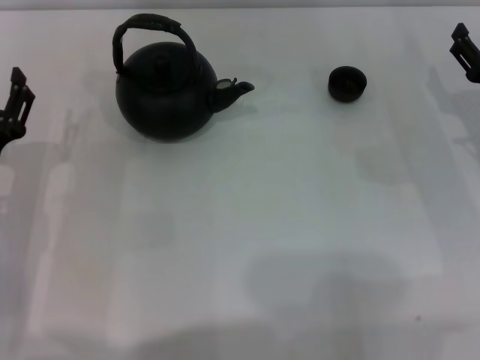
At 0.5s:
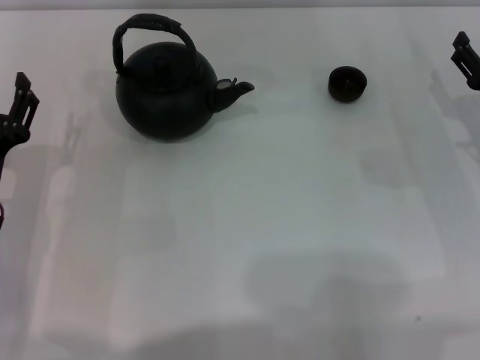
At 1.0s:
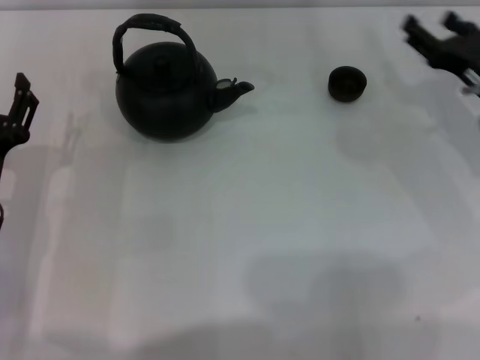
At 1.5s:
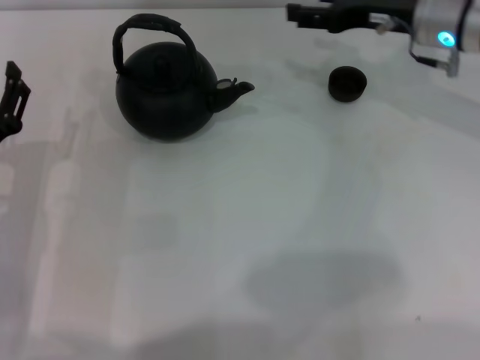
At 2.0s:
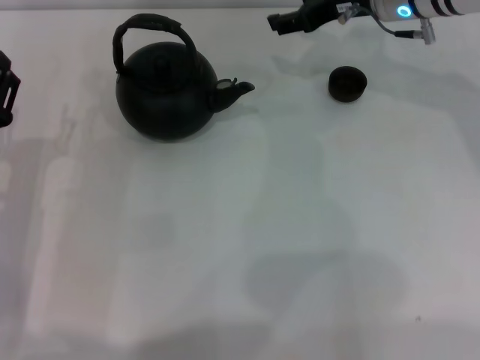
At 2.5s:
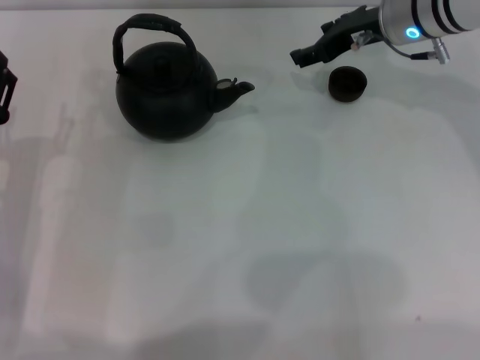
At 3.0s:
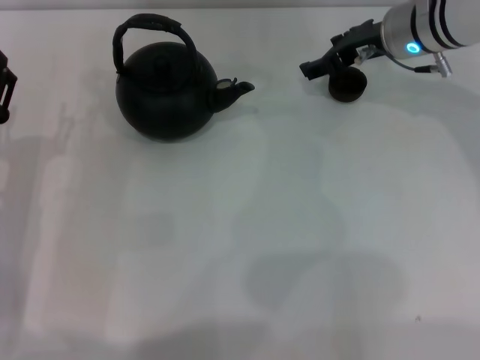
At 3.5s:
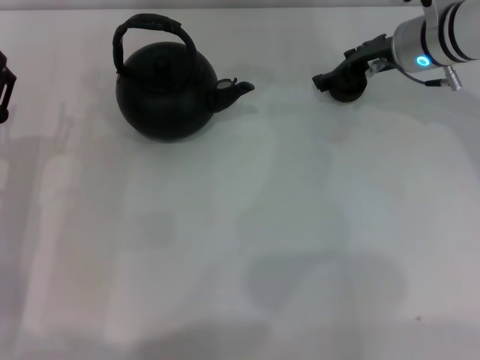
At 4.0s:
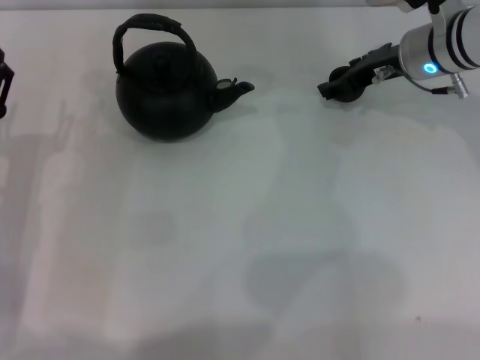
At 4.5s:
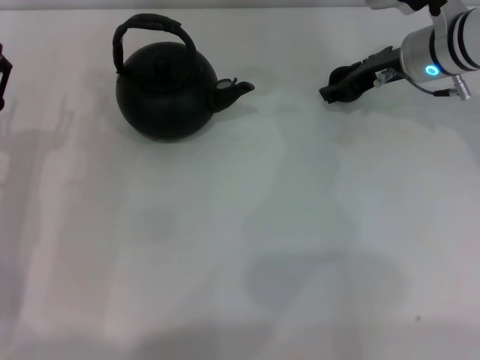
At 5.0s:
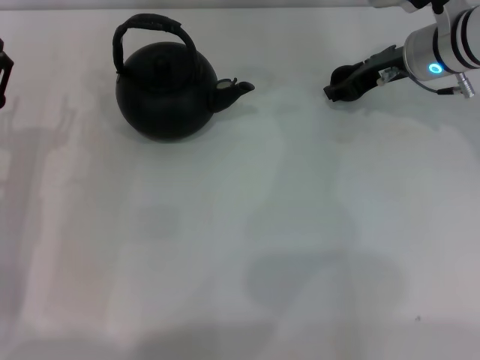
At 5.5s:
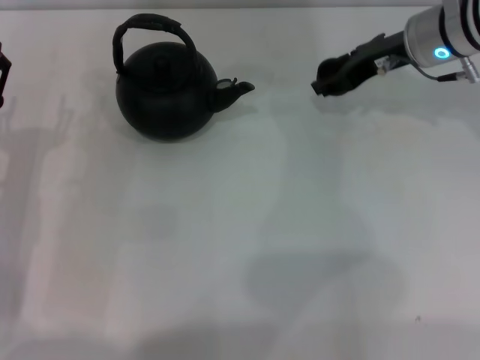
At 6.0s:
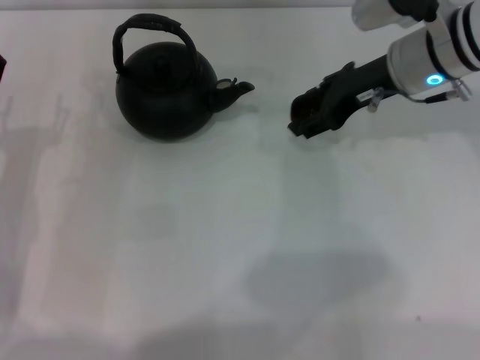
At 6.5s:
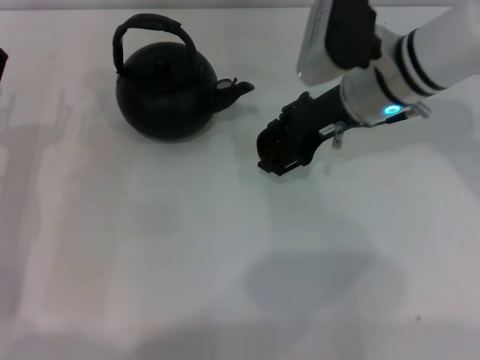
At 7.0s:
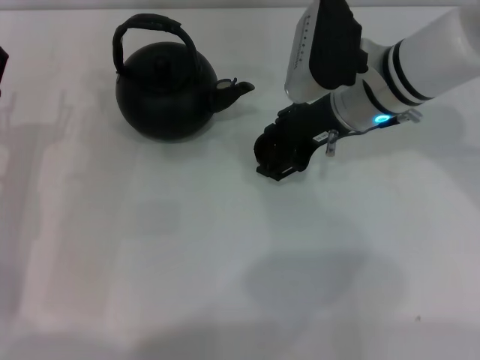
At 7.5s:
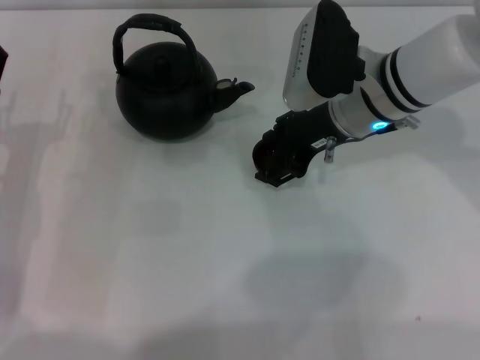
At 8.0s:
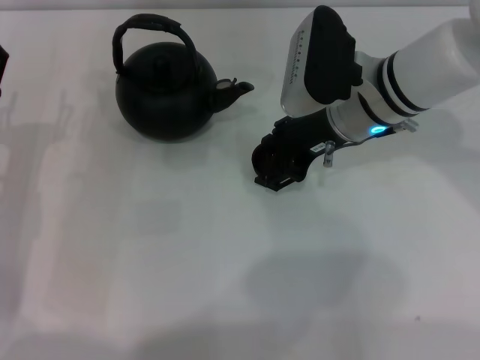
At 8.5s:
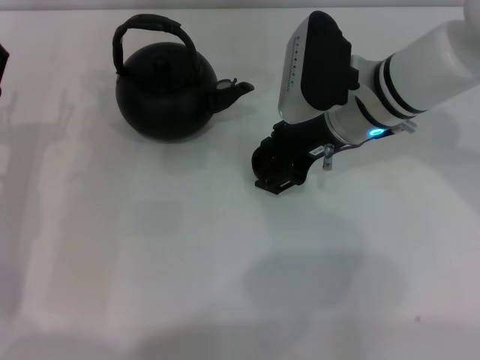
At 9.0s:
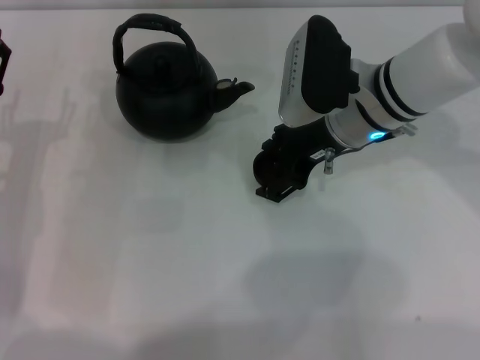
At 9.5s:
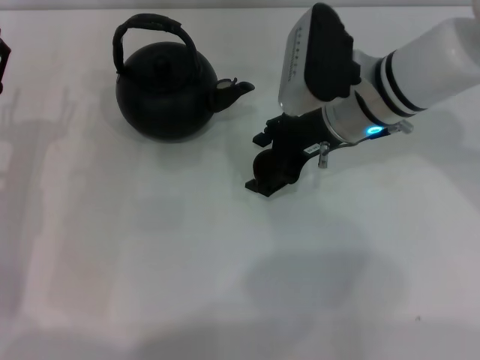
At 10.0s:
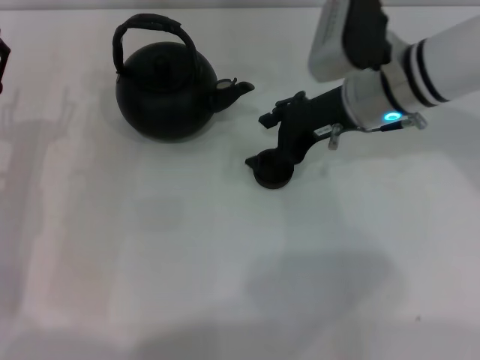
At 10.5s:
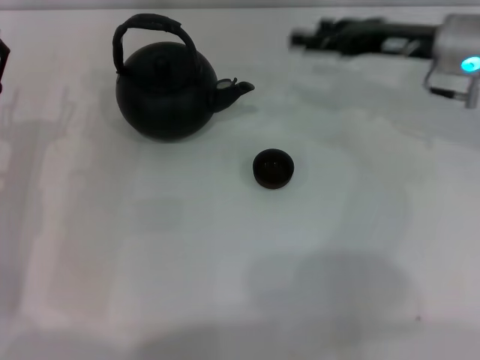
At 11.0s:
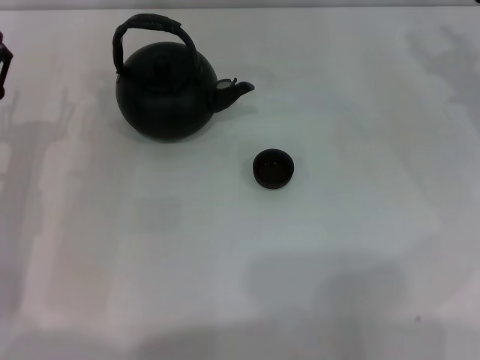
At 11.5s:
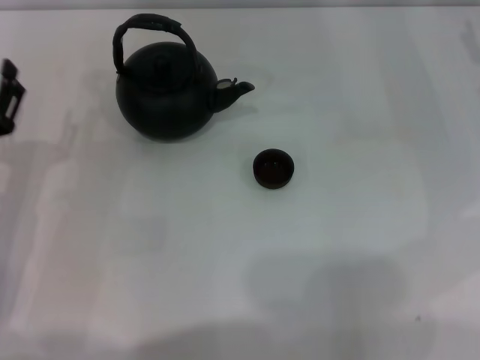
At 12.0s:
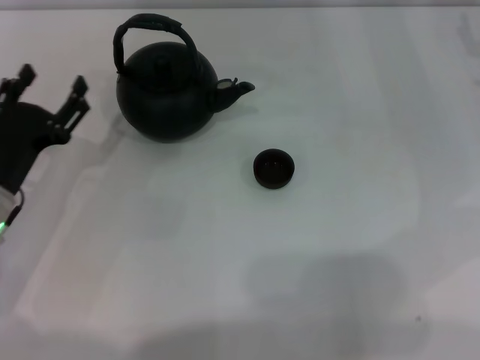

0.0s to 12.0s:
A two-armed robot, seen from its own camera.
Task of the whole recording: Grasp the handle of the teapot with one hand and pour tea into the teacup.
Step, 0.0s to 5.5s: Pick up the teacup with the right gripper.
Step, 6.0s to 9.5s: Place the teacup in the center of view with the right gripper.
0.0s to 2.0s: The right gripper goes approximately 25 cm forward, to the left and upward, and closes.
2.0s to 4.0s: The right gripper moves roughly 5 cm, and closes up.
4.0s to 6.0s: The right gripper changes place by about 5 cm.
6.0s to 8.0s: The right gripper goes roughly 5 cm to the left, and opens.
8.0s to 10.0s: The grippers make only small movements.
10.0s to 12.0s: The right gripper is displaced to the right by approximately 20 cm.

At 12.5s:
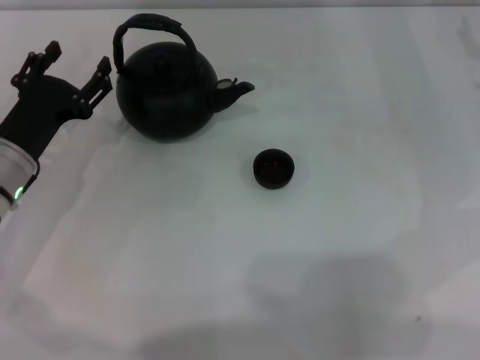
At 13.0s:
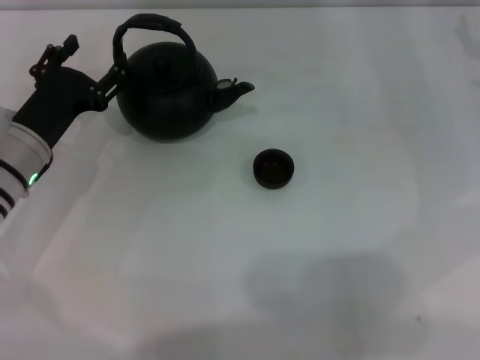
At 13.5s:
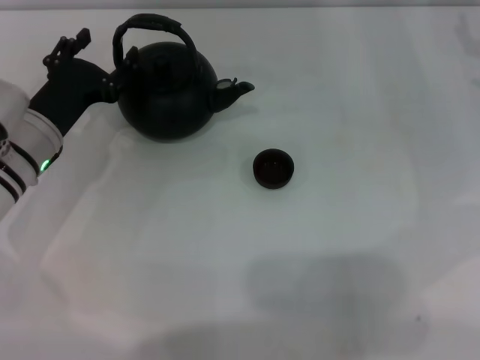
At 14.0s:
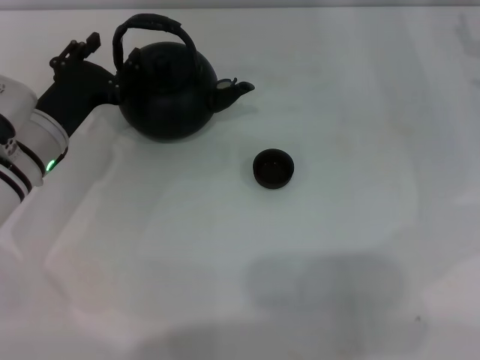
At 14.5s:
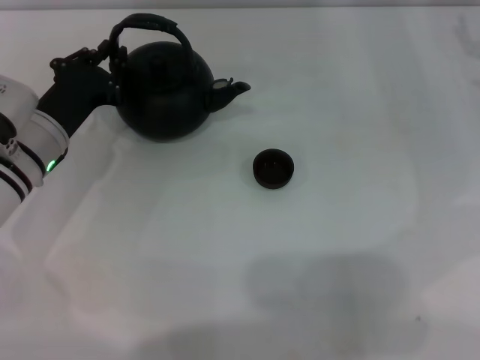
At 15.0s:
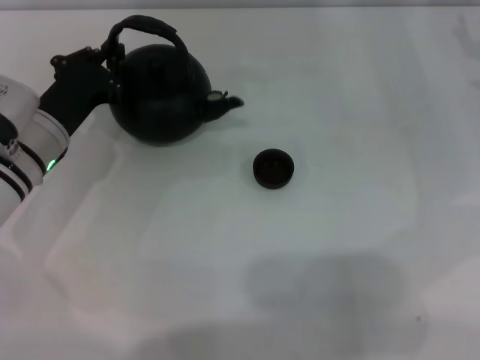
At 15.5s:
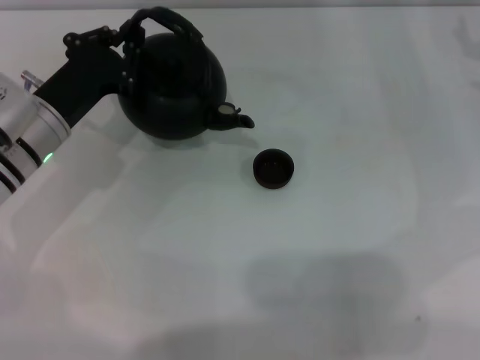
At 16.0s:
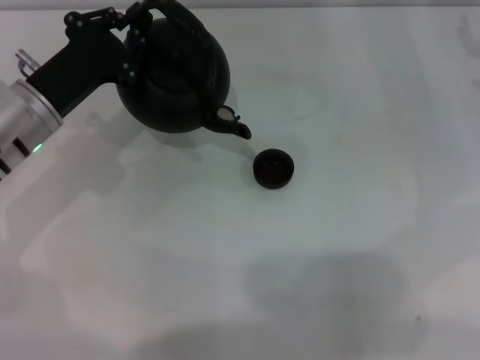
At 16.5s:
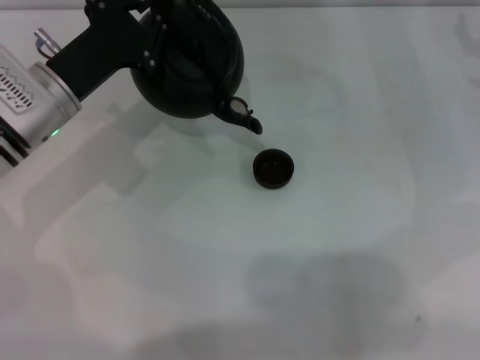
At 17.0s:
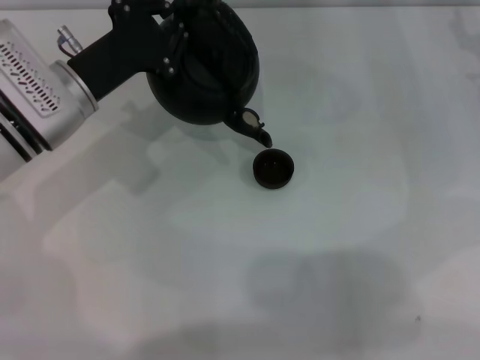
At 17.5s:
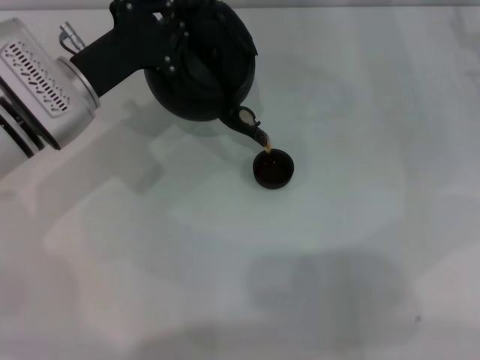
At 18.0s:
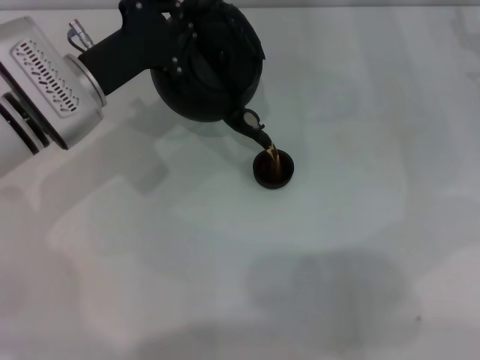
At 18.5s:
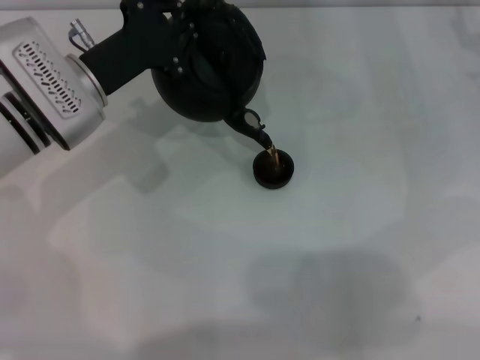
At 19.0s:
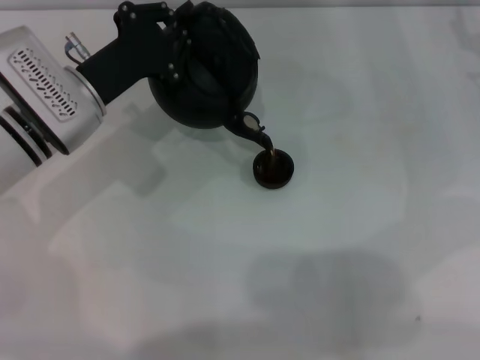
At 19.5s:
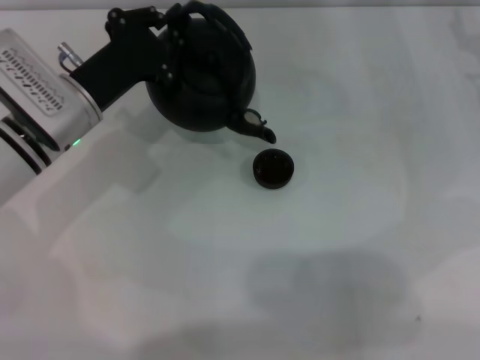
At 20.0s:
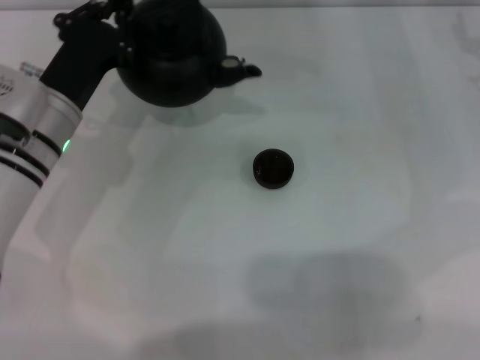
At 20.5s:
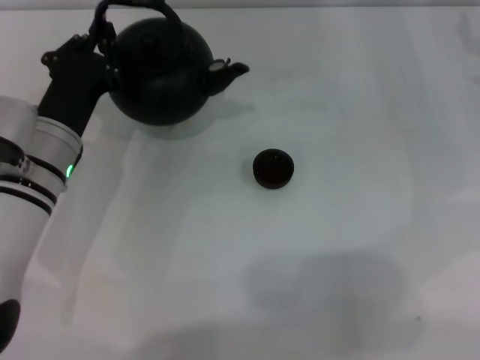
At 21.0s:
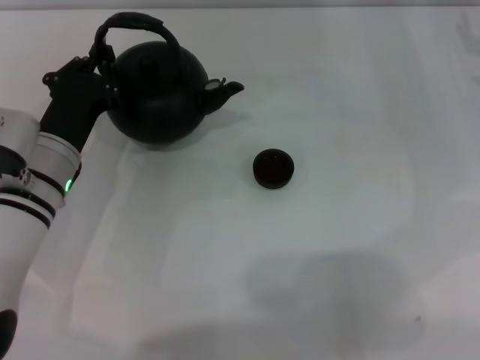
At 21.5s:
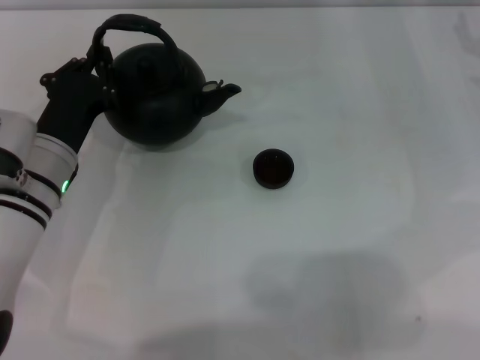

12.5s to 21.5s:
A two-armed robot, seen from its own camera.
Task of the whole recording: Grasp the handle of the teapot with one hand and pour tea into the teacup.
Step, 12.5s to 15.5s: Pick up the teapot with the left gripper.
Step, 16.0s to 19.0s: Pour tea into the teacup with the left gripper.
12.5s to 14.5s: The left gripper closes.
14.5s to 17.0s: The left gripper ends up some 5 cm from where it was, and closes.
17.0s to 19.5s: The grippers move only a little.
19.5s to 21.5s: The left gripper changes place by approximately 5 cm.

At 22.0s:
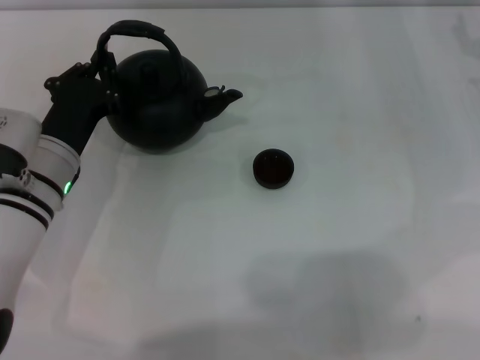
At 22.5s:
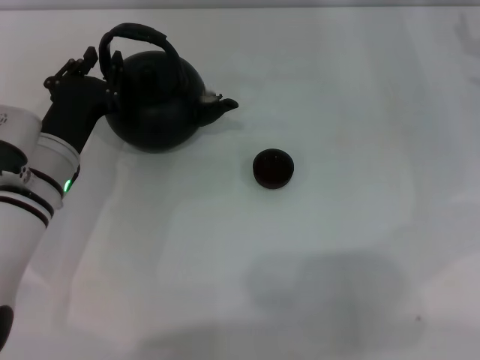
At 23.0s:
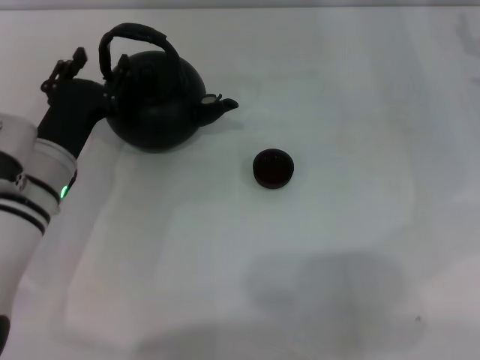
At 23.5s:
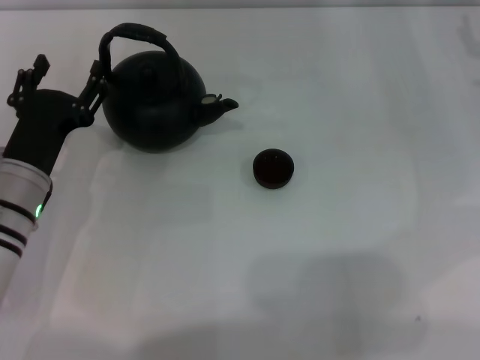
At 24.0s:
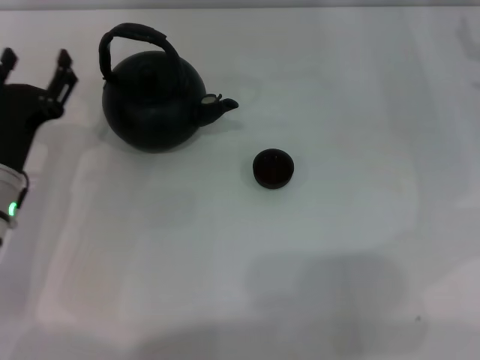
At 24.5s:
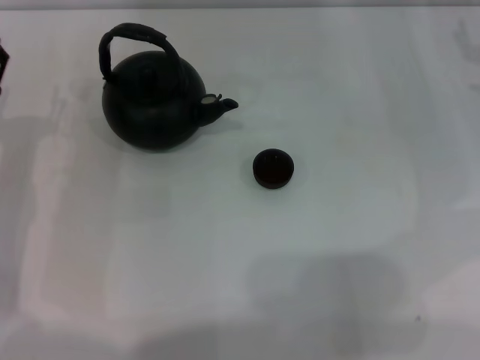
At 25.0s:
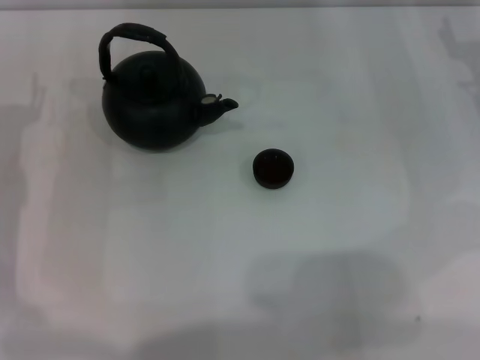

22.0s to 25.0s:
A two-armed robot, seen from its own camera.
Task of the whole recording: Grasp the handle of the teapot with one hand and pour tea into the teacup.
22.0s to 23.5s: The left gripper opens.
23.5s to 25.0s: The left gripper heads to the left, covering approximately 5 cm.

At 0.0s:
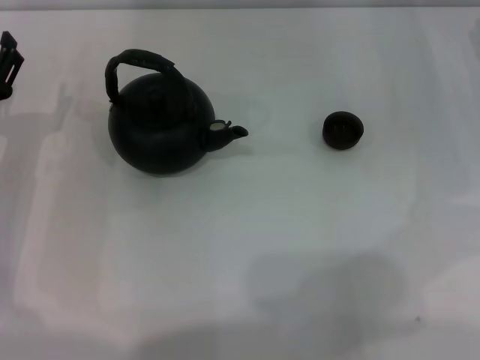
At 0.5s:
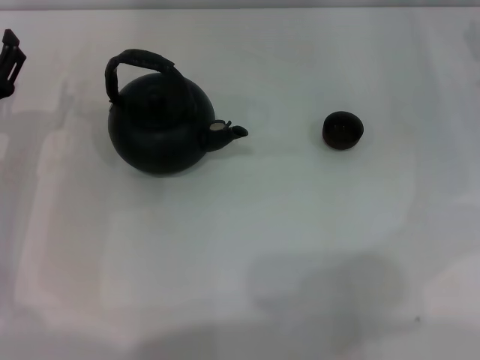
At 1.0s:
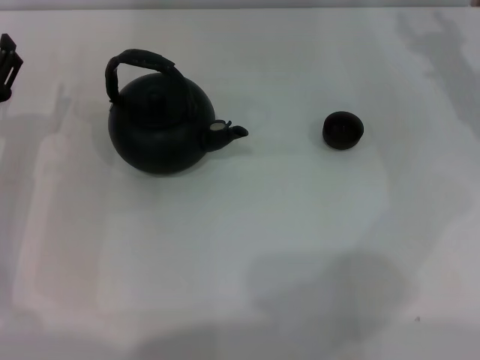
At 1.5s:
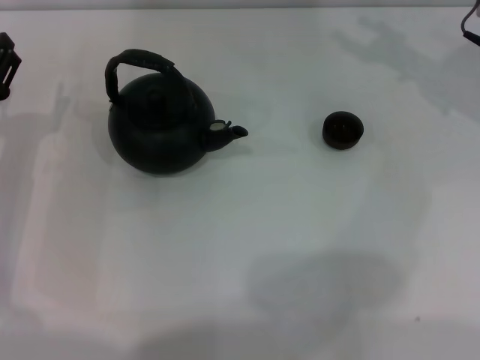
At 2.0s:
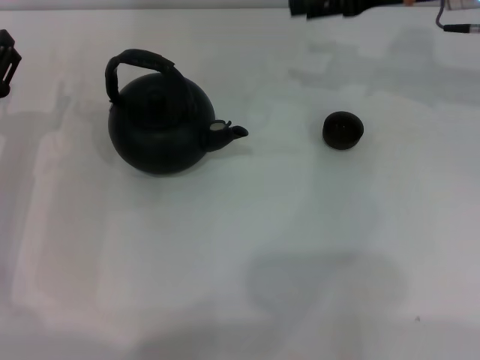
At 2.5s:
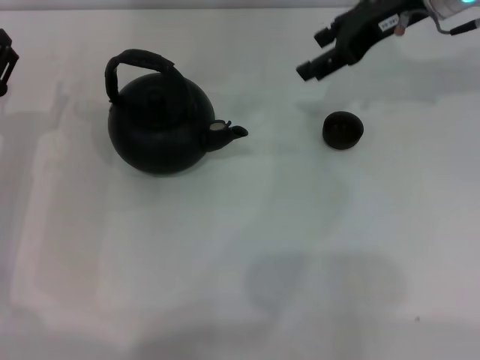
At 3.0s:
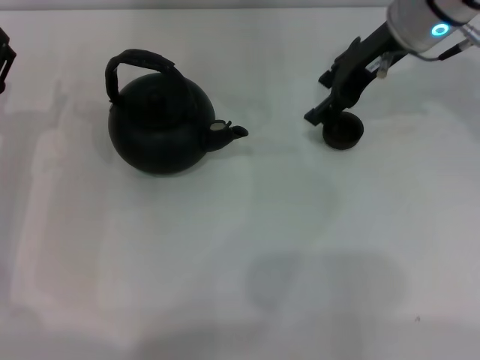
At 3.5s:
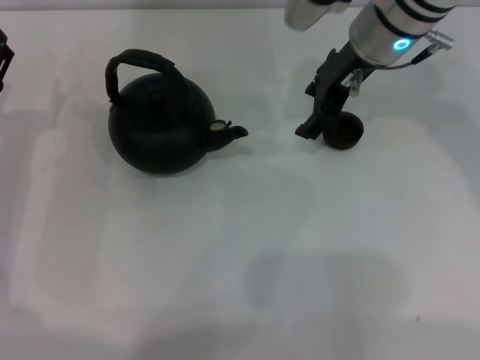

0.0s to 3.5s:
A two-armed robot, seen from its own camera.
Task of the whole recording: Grasp the handle of the teapot with one hand and pour tea into the teacup.
0.0s to 2.0s: The right gripper moves to the left, upward and forward, roughly 15 cm.
2.0s to 3.5s: The right gripper is displaced to the left by approximately 10 cm.
